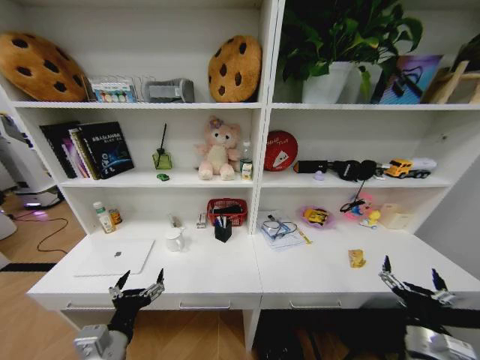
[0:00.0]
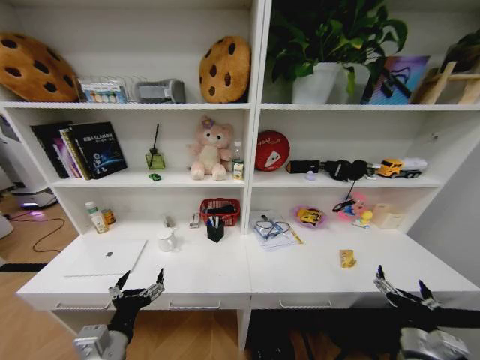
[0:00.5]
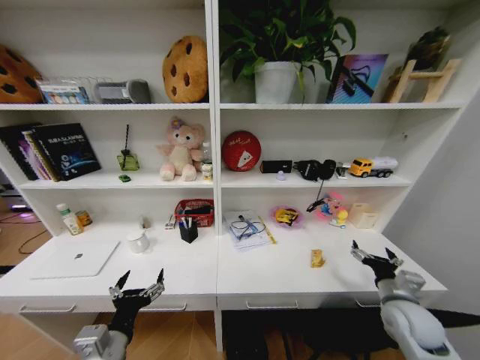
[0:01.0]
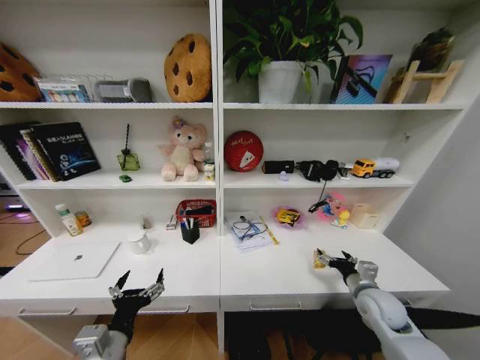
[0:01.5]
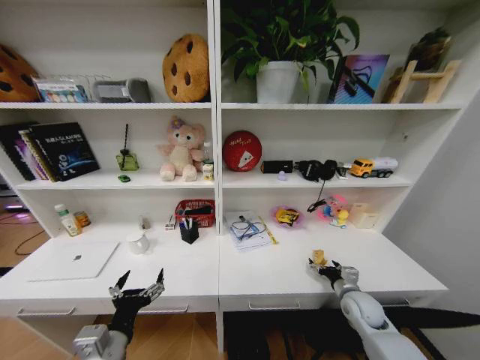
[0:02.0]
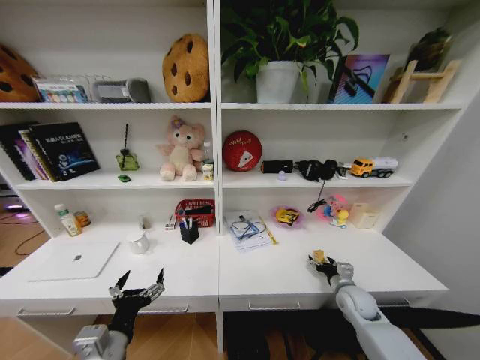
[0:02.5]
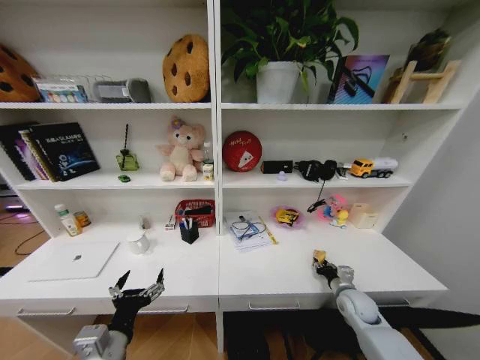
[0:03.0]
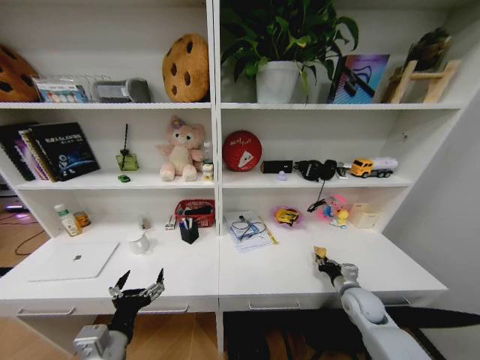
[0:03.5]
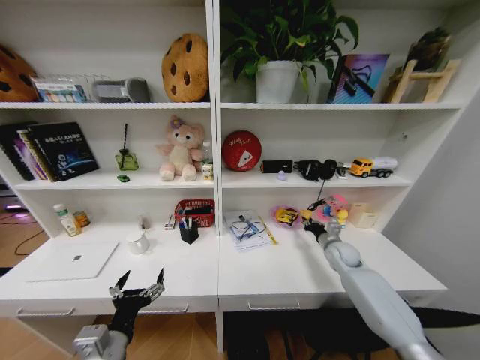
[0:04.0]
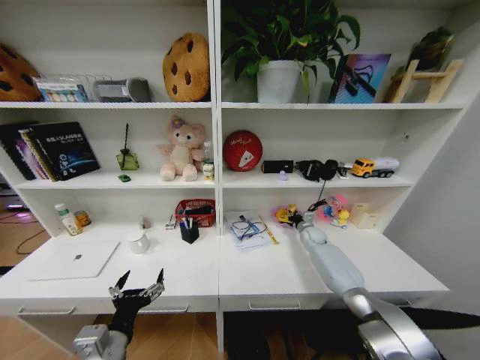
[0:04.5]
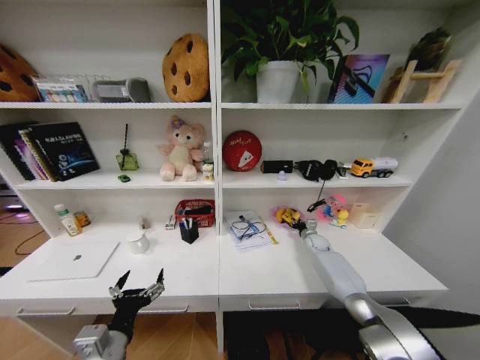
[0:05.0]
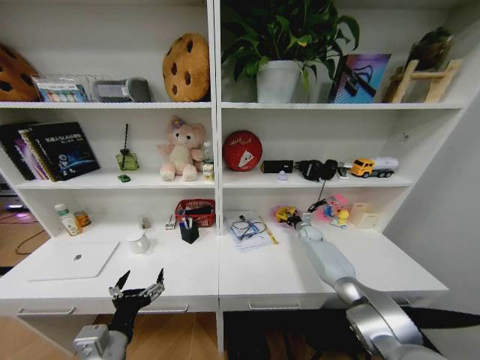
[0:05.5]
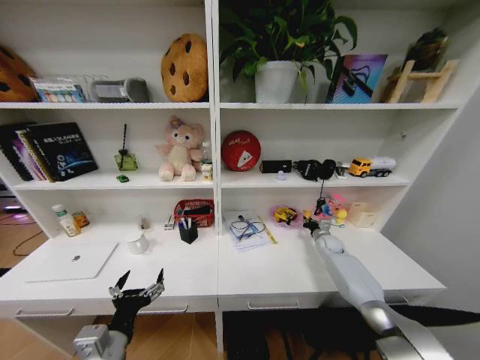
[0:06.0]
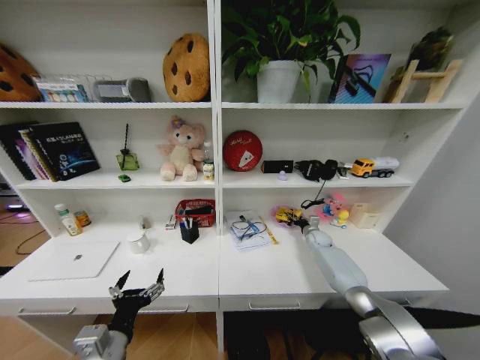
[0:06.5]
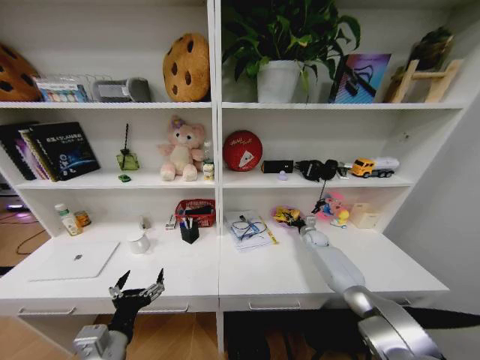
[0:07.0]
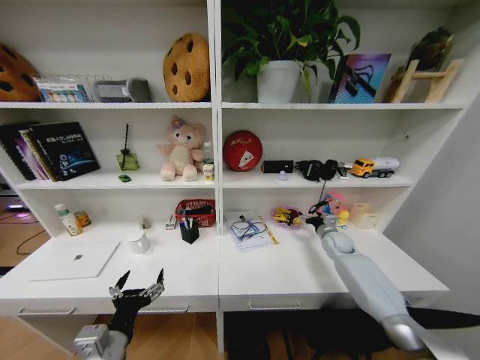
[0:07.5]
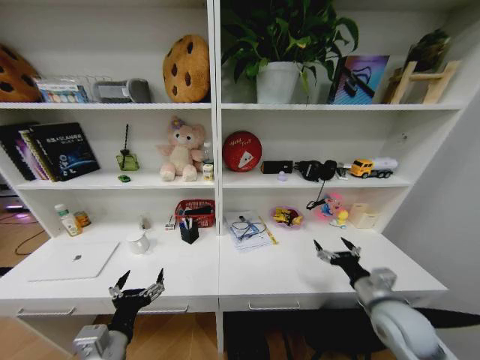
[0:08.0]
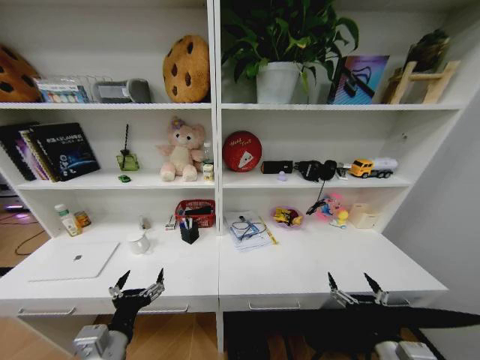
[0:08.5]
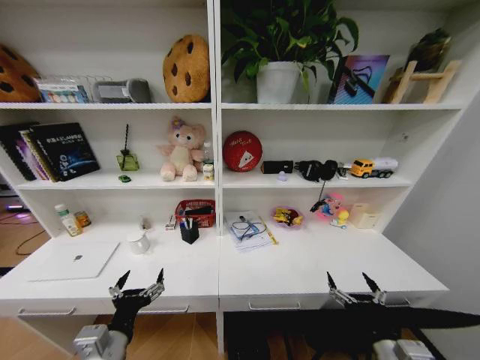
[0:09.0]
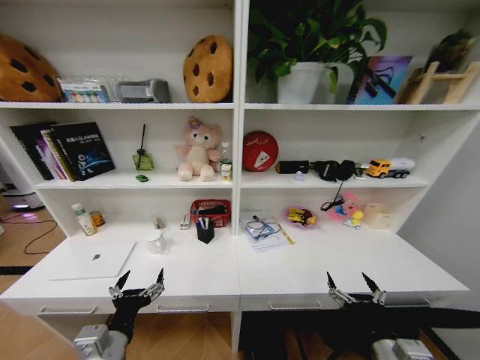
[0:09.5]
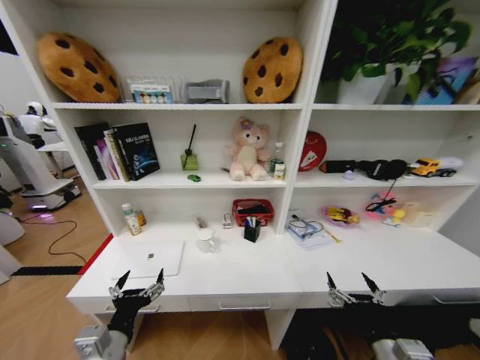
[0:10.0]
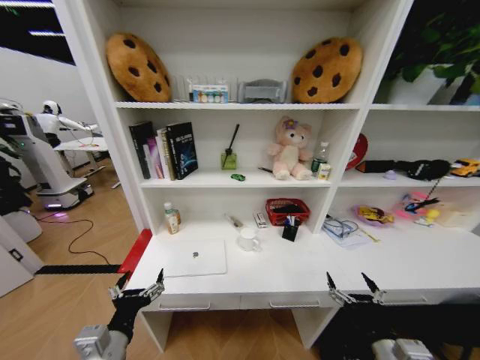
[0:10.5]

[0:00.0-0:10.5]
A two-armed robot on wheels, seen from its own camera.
Task of the whole recording: Organize the objects on the table.
0:00.0 to 0:02.0: The right gripper goes about 15 cm forward.
0:02.0 to 0:04.0: The right gripper goes roughly 15 cm forward and upward, and closes up.
0:04.0 to 0:06.5: The right gripper goes approximately 15 cm forward and downward.
0:06.5 to 0:08.5: The right gripper goes approximately 50 cm backward, and opens its fingers.
